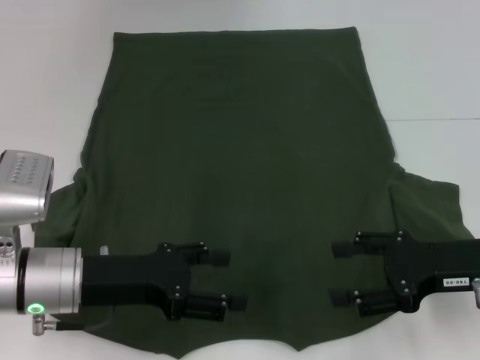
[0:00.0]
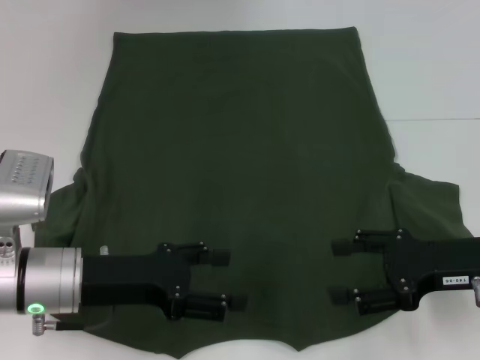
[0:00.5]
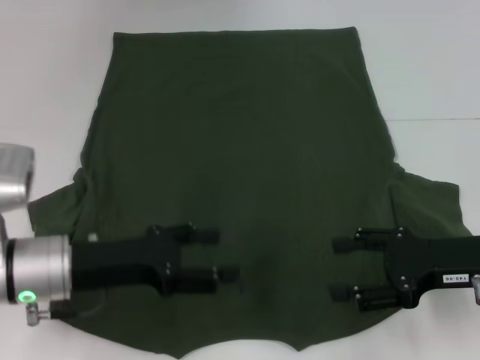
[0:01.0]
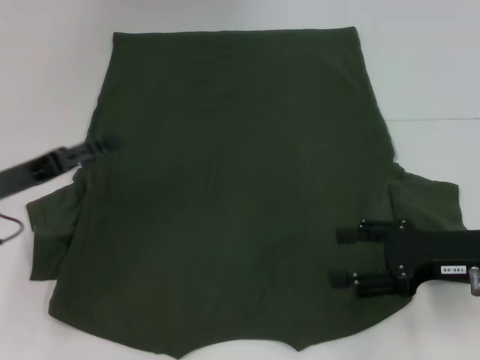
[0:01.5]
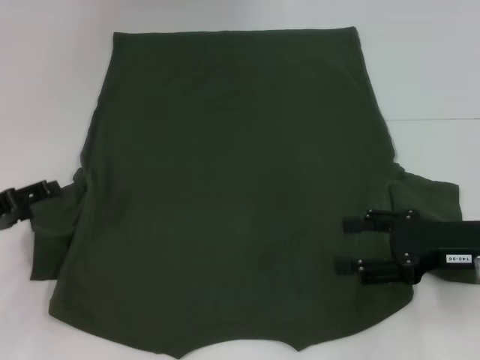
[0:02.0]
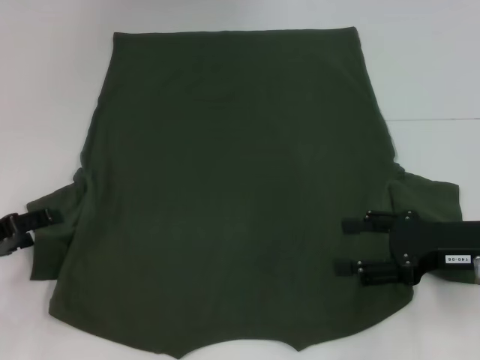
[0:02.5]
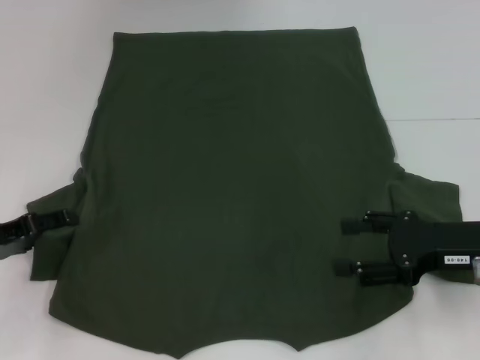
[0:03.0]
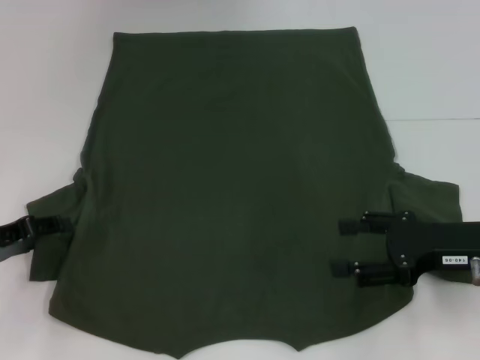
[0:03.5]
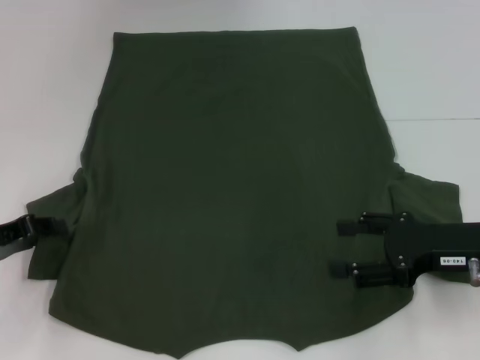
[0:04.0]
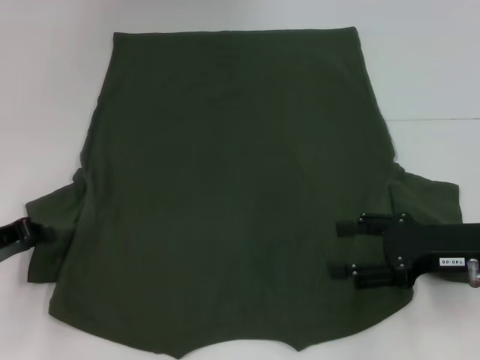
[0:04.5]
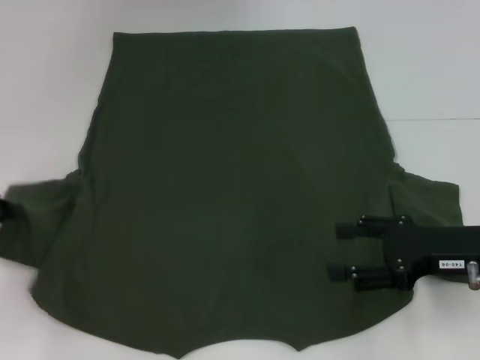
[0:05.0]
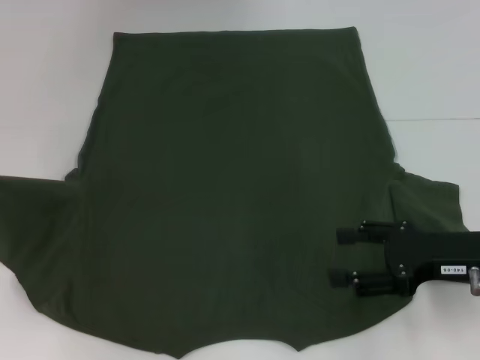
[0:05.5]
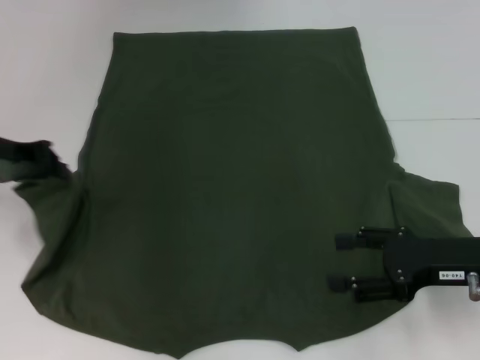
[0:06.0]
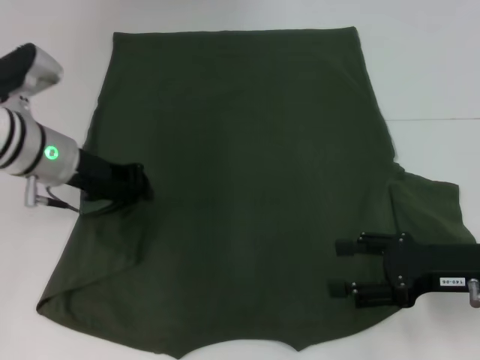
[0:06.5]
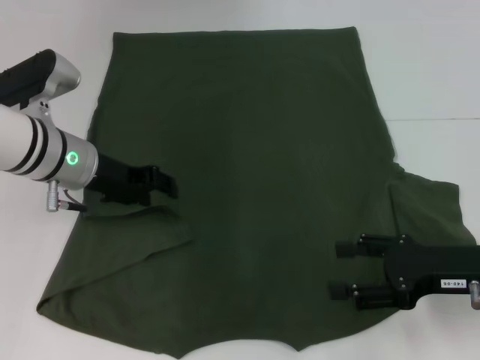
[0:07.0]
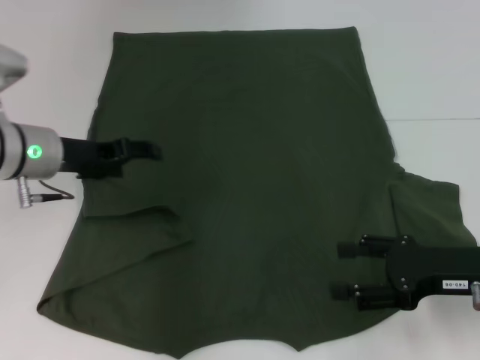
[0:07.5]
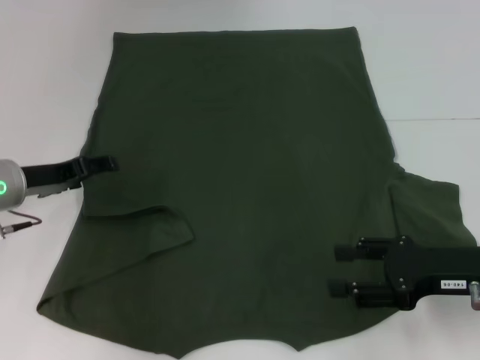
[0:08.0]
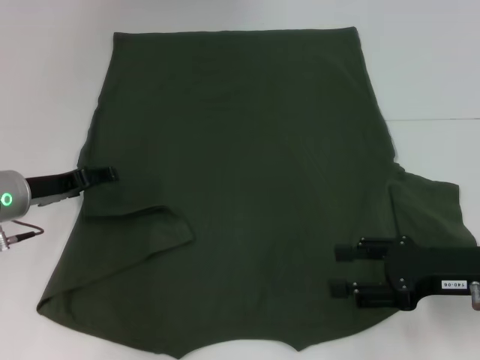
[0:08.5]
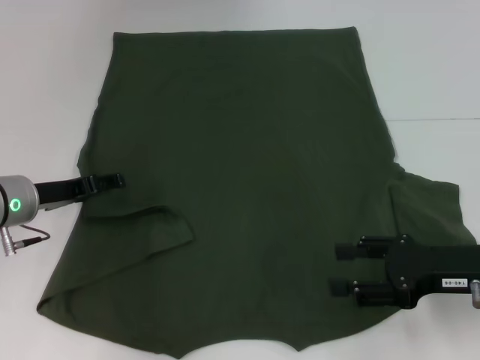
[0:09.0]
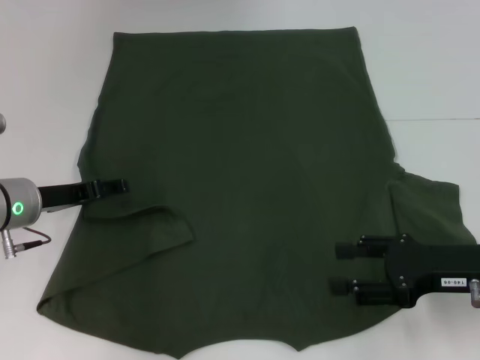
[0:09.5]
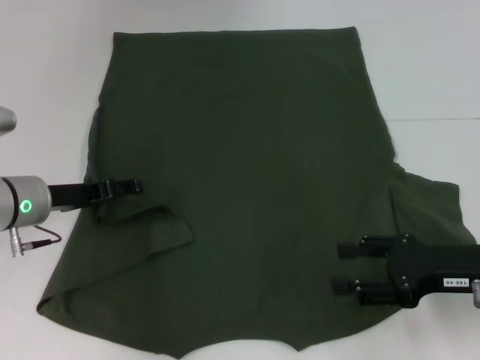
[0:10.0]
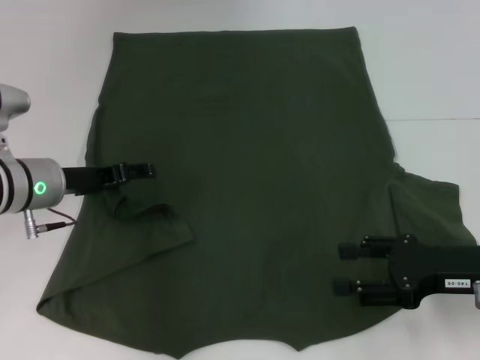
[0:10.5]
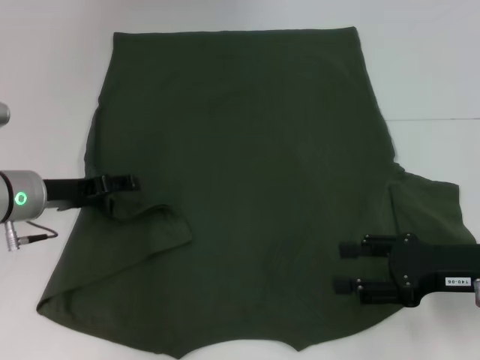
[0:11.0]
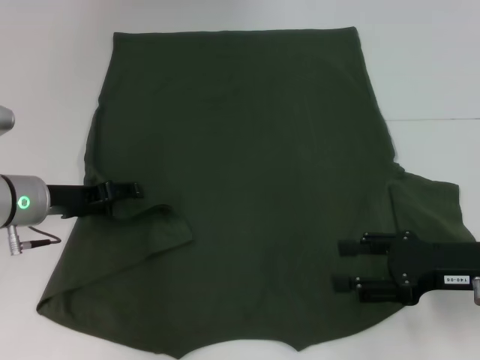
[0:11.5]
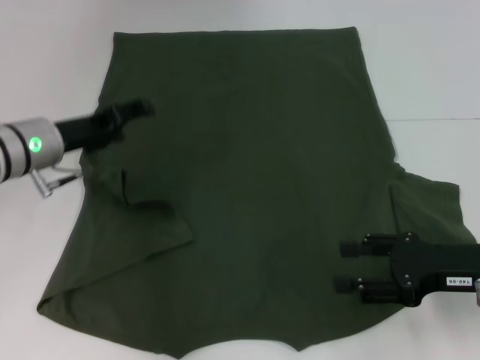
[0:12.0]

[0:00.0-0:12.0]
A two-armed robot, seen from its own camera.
0:00.0 to 0:02.0: The left gripper heads to the left, covering about 15 cm.
0:02.0 to 0:04.0: The left gripper closes up.
0:04.0 to 0:06.0: The left gripper shifts approximately 15 cm upward and forward.
0:06.0 to 0:08.0: The left gripper moves downward, about 10 cm, reaches about 10 cm to the right, then returns, and opens up.
0:08.0 to 0:10.0: There are only small adjustments of the grippers.
0:10.0 to 0:12.0: The left gripper ends up about 5 cm from where it was.

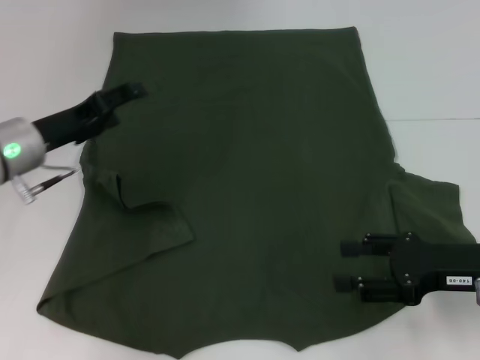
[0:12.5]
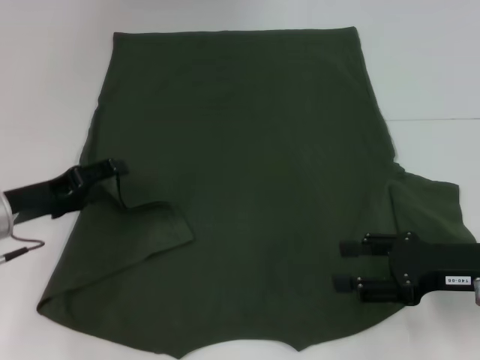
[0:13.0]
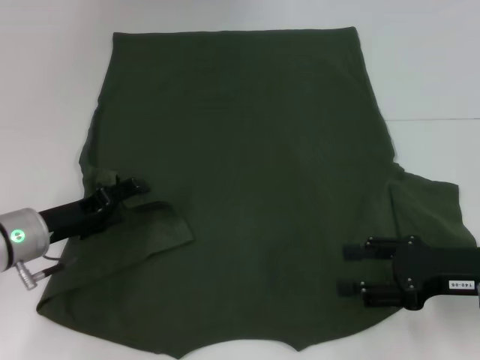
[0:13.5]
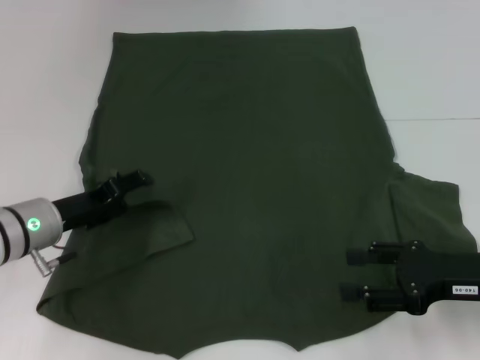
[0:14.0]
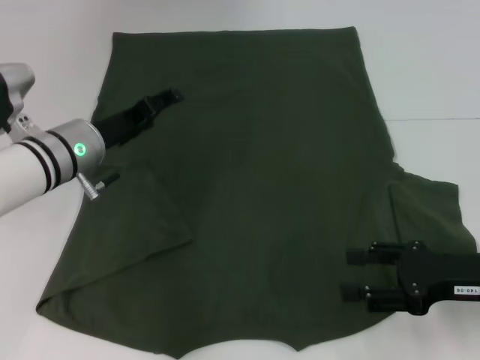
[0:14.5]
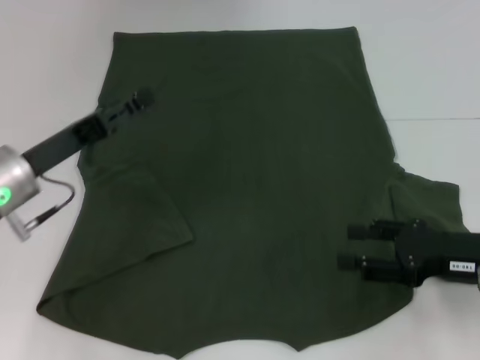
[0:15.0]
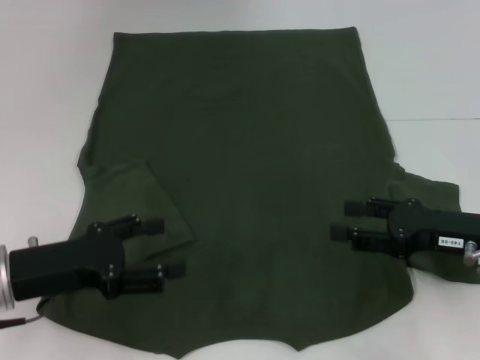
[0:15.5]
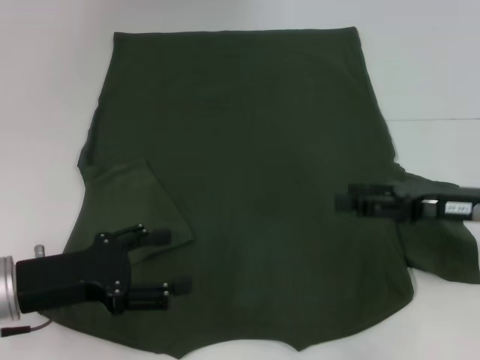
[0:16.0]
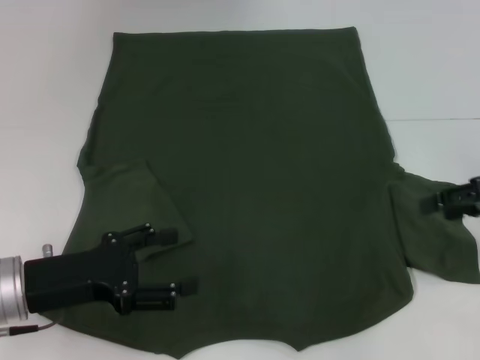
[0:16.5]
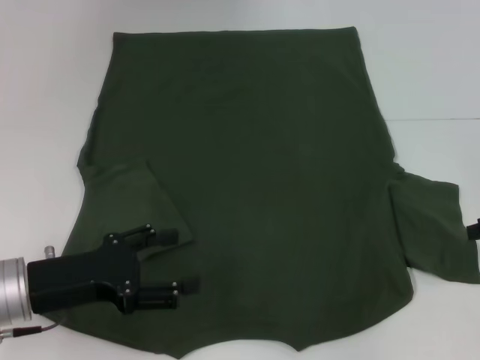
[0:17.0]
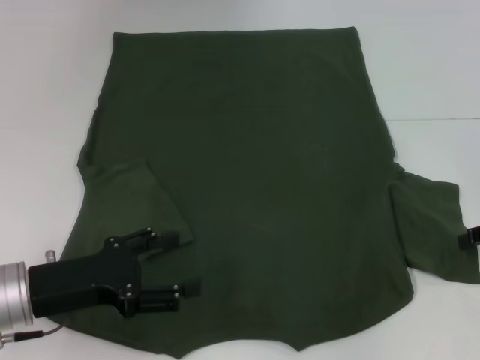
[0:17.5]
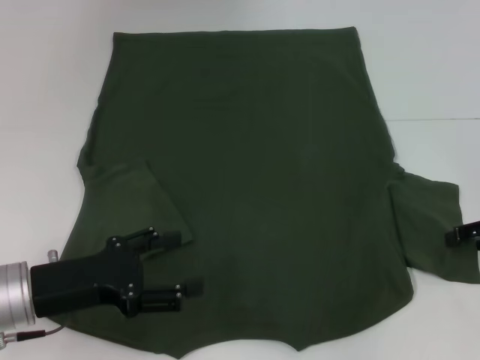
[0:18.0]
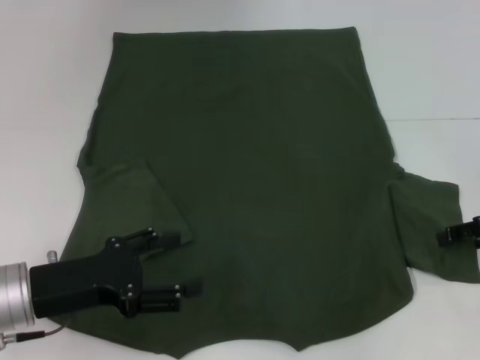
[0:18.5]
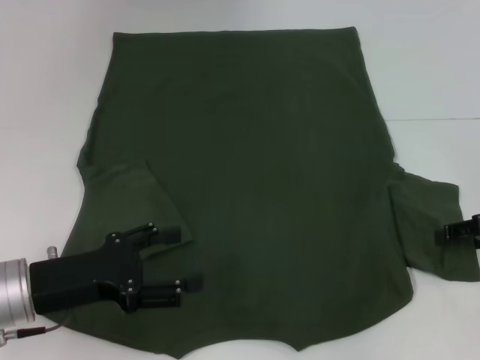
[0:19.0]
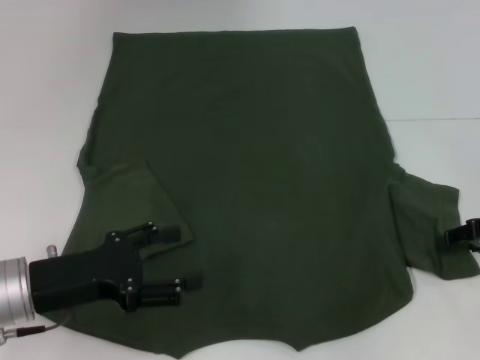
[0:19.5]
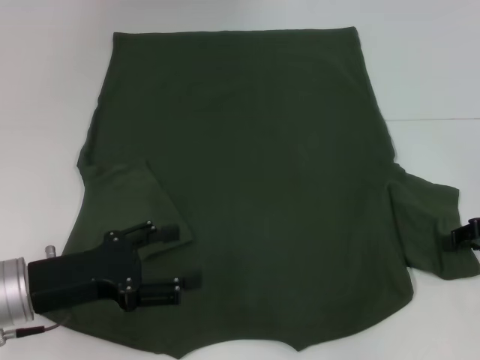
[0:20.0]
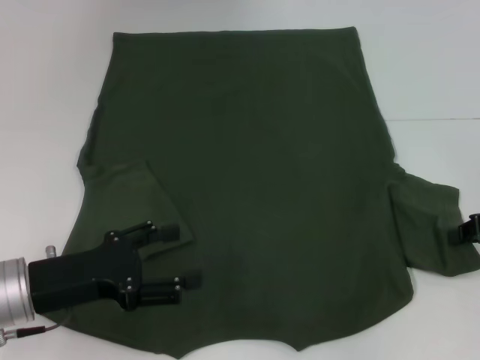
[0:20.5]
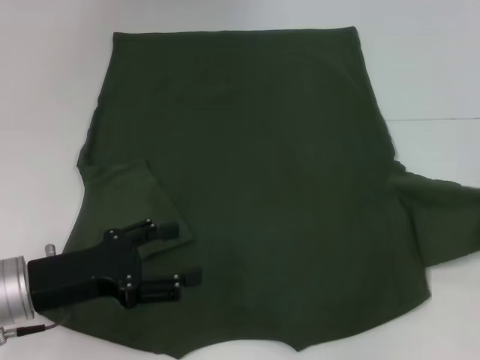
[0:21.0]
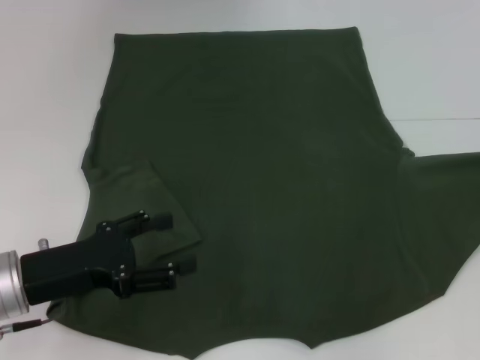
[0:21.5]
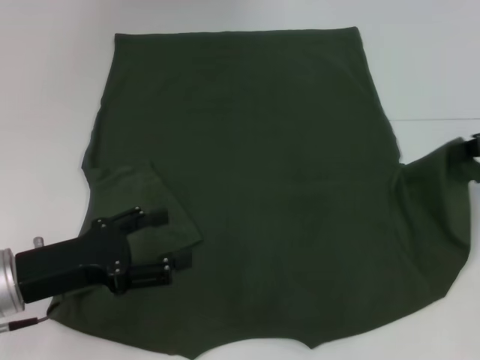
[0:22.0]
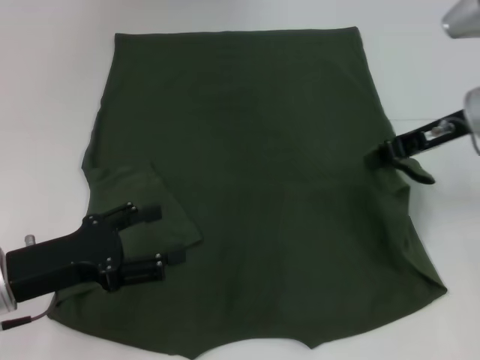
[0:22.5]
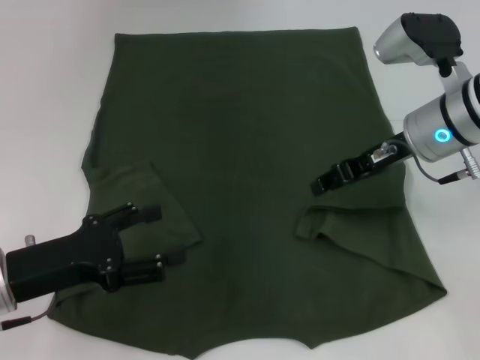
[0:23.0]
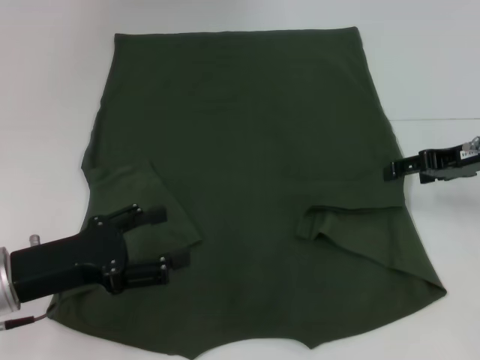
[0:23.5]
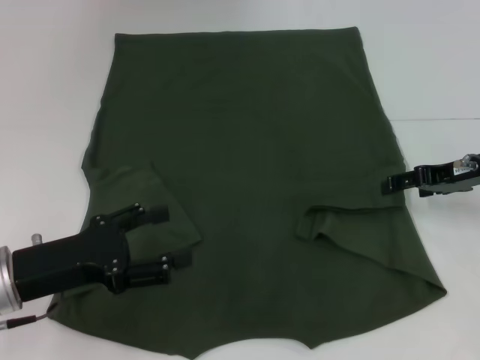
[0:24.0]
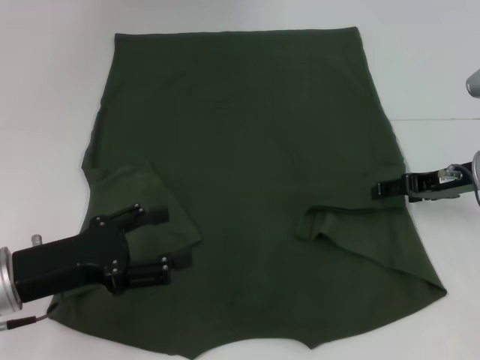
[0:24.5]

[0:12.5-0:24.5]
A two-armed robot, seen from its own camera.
0:12.5 to 0:14.5: The left gripper travels to the right by some 5 cm.
0:14.5 to 0:16.5: The left gripper moves backward, some 15 cm. The right gripper heads upward, forward and to the right, covering approximately 10 cm.
0:16.5 to 0:18.5: The right gripper travels downward by some 5 cm.
0:18.5 to 0:20.5: The right gripper closes its fingers.
0:20.5 to 0:22.5: The right gripper is displaced to the left, upward and forward by about 15 cm.
0:22.5 to 0:24.5: The right gripper goes some 10 cm downward, moves about 5 cm to the left and comes back, and opens.

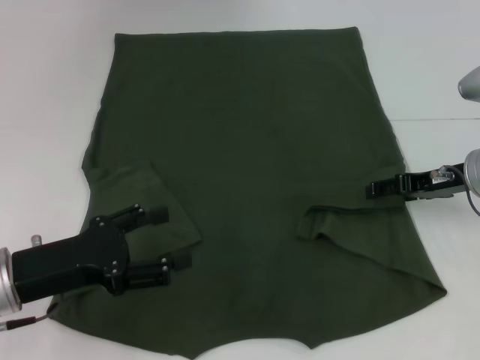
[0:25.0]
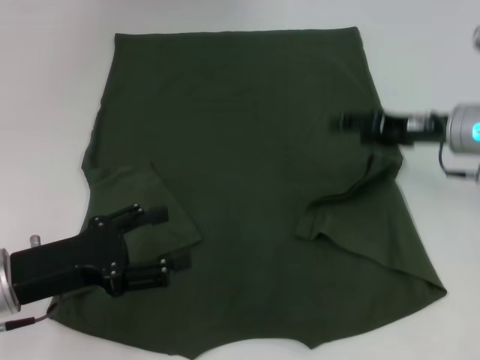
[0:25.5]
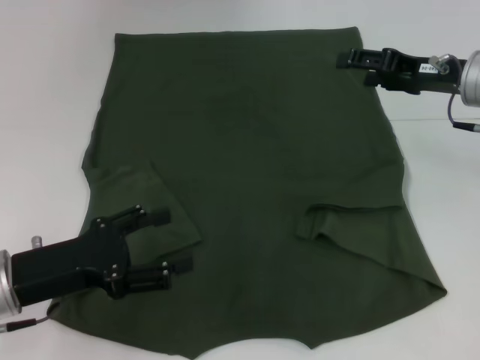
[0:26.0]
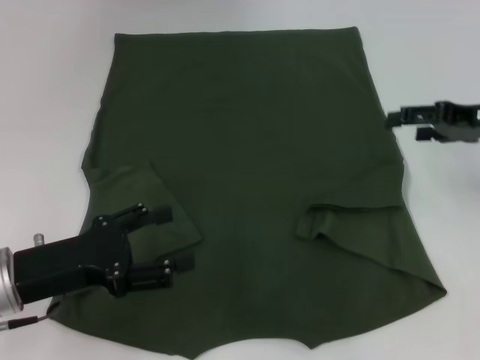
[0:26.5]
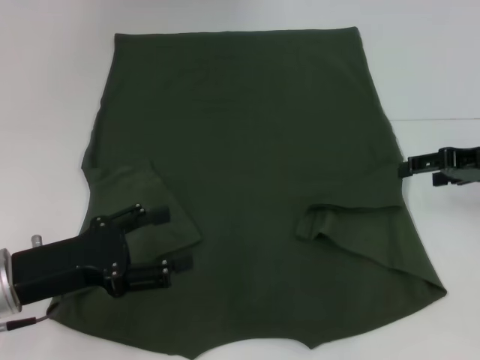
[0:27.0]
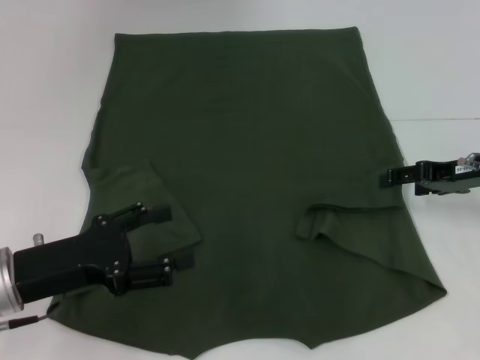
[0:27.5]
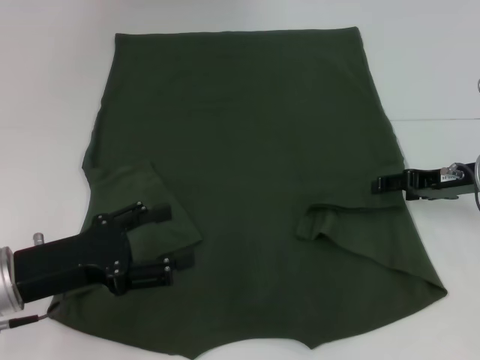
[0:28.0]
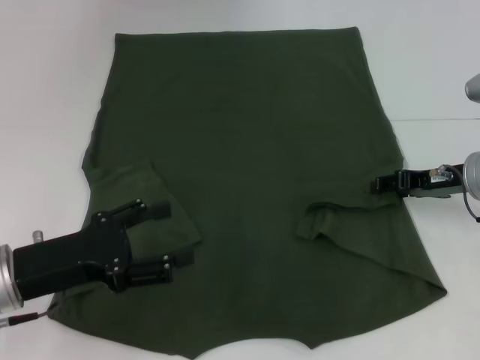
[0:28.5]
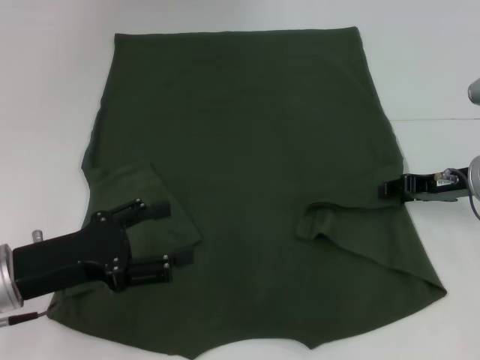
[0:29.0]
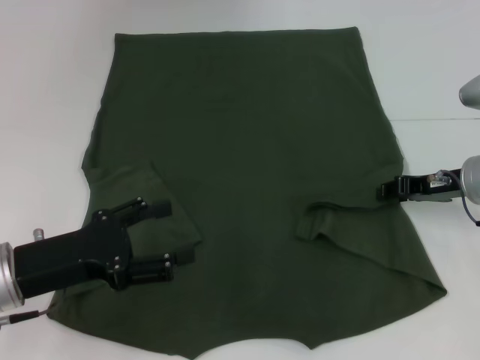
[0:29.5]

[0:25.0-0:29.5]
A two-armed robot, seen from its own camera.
0:25.0 to 0:27.0: The right gripper moves roughly 5 cm.
0:27.0 to 0:29.5: The right gripper shifts roughly 5 cm downward, and closes.
